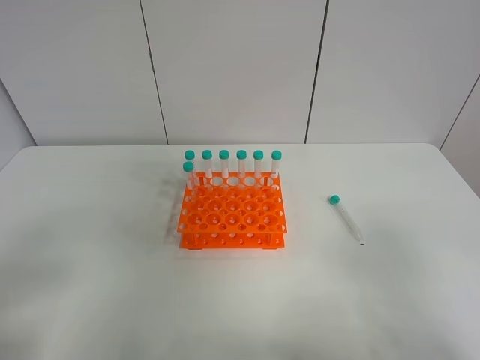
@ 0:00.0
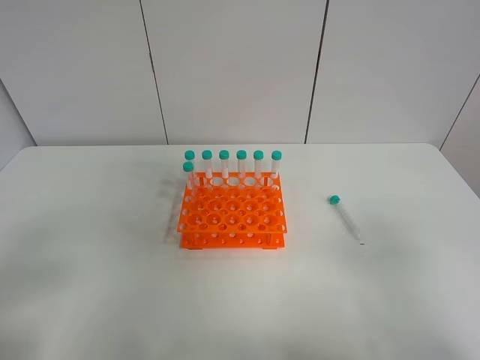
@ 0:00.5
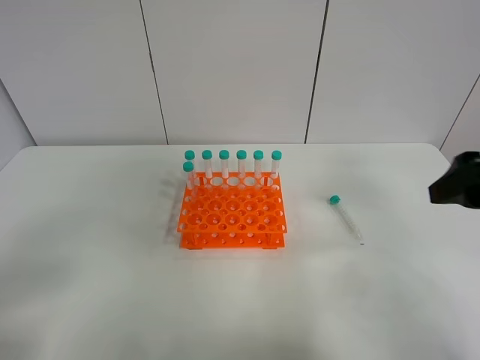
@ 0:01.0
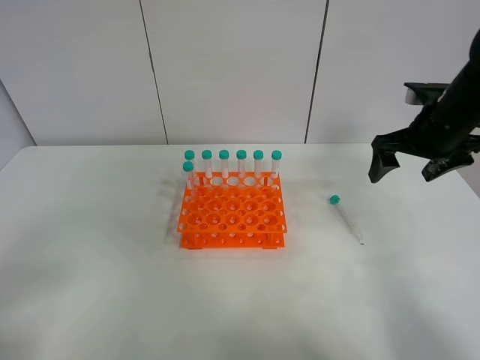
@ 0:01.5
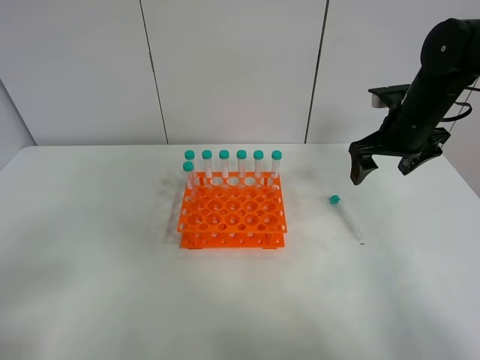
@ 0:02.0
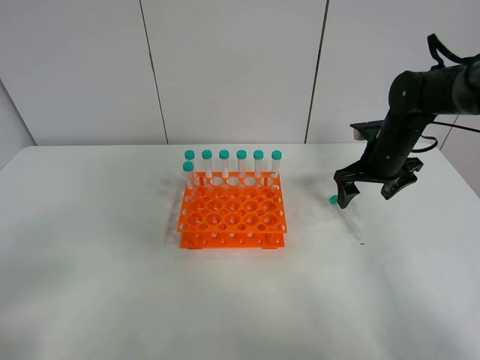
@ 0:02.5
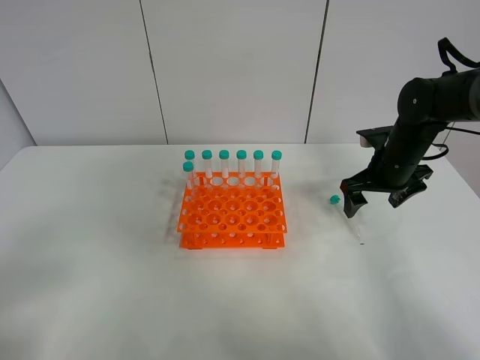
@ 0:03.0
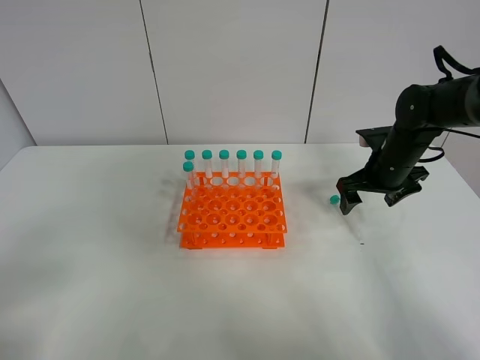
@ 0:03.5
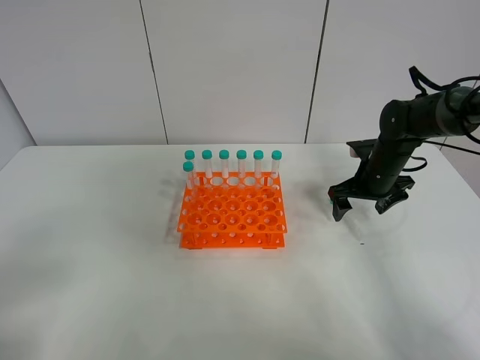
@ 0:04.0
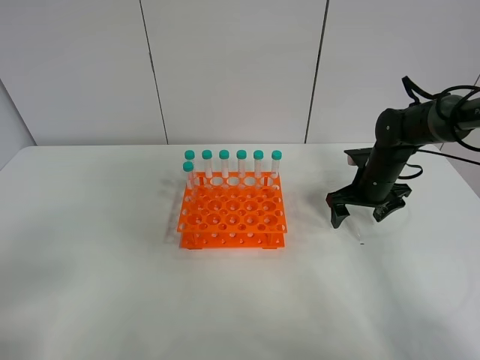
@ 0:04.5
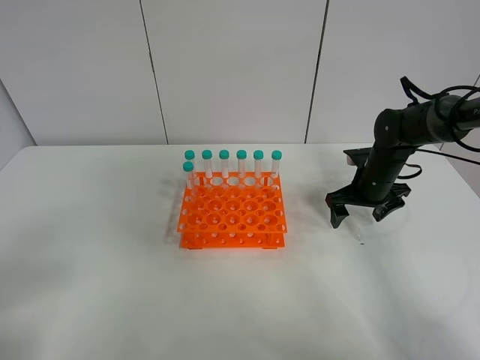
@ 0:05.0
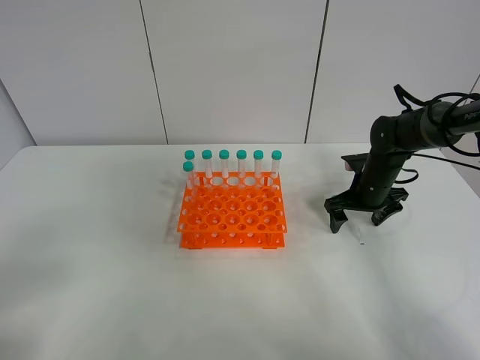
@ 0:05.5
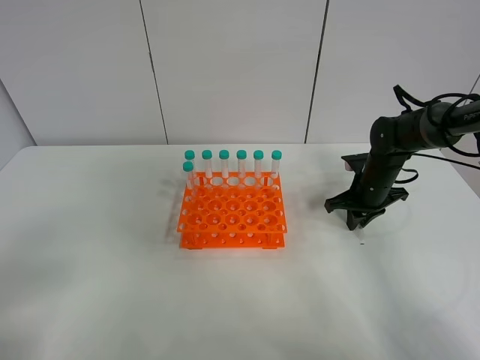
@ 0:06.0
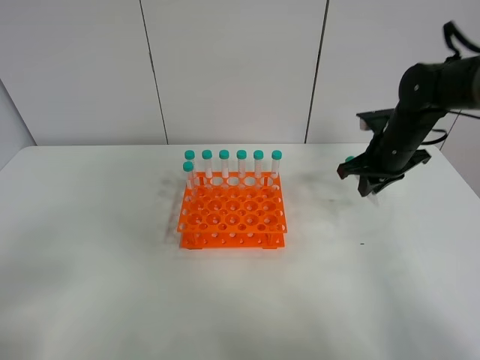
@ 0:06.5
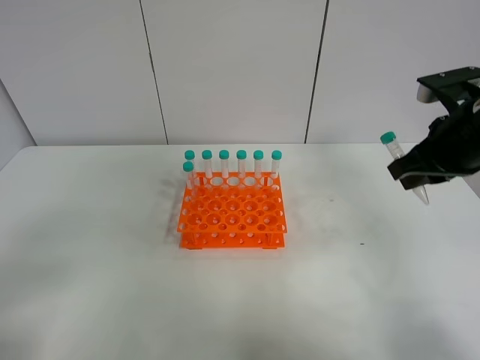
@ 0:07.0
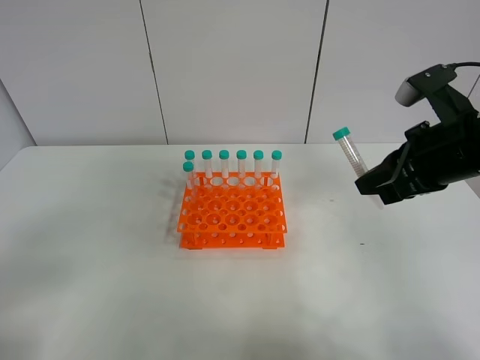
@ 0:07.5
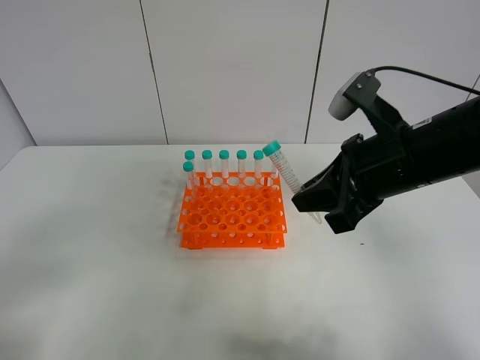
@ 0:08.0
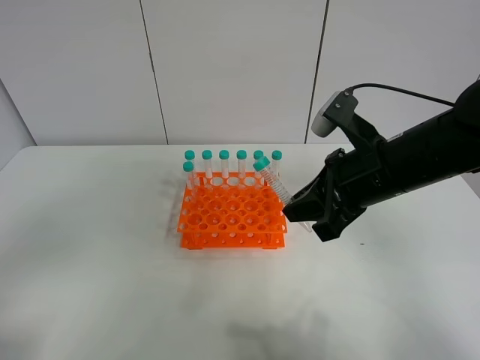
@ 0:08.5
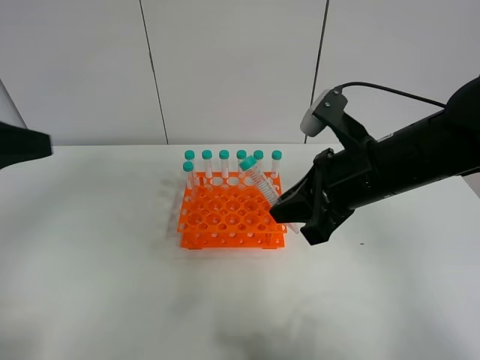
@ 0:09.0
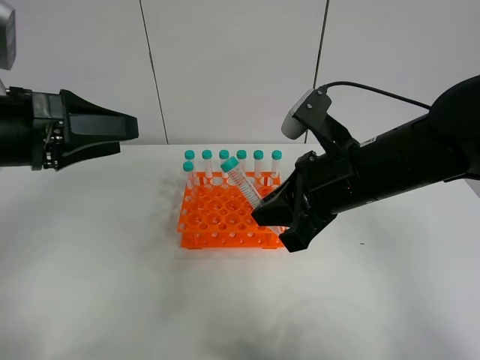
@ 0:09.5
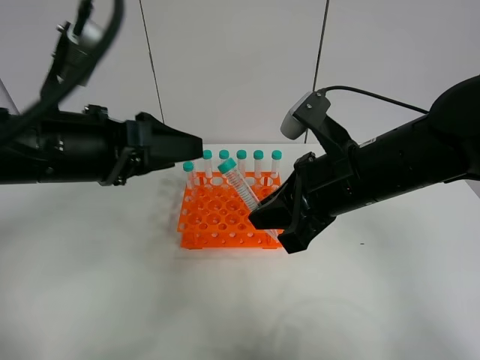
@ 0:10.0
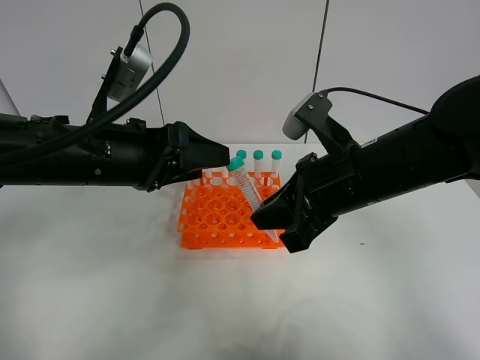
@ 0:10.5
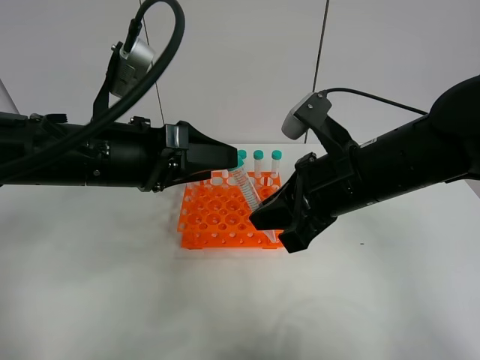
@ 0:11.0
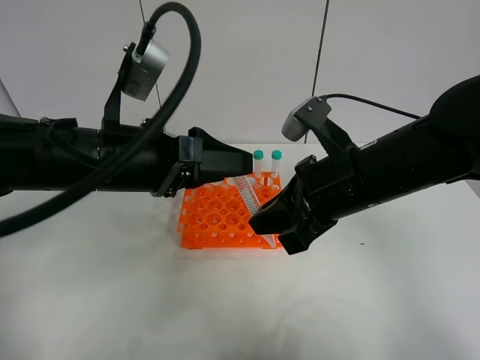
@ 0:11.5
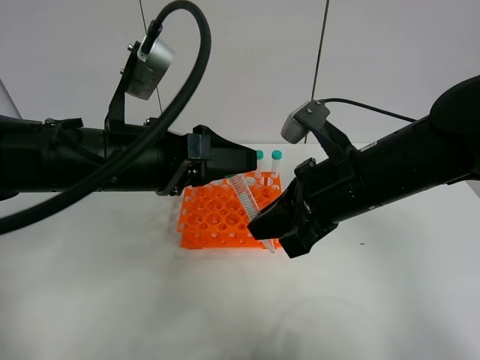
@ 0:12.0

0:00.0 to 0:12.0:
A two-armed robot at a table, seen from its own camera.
Task of the whole recording: Put the test tube on the table back onto the test tube rack.
Step, 0:00.0 to 0:06.0: Pick up the test tube with the right gripper.
0:00.0 to 0:02.0: The right gripper heads forward, covering some 40 cm.
0:02.0 to 0:04.0: The right gripper shifts about 10 cm downward.
0:04.0 to 0:06.0: The right gripper closes up.
0:06.0 to 0:08.0: The right gripper travels upward, backward and to the left by approximately 25 cm.
0:08.0 to 0:10.0: The left gripper goes some 25 cm forward and to the right.
0:10.0 to 0:12.0: The left gripper moves approximately 5 cm.

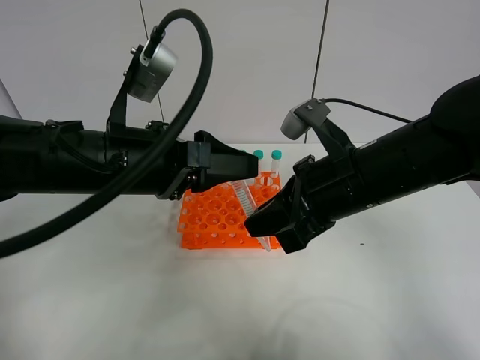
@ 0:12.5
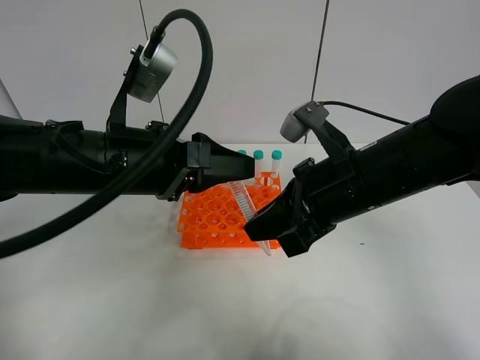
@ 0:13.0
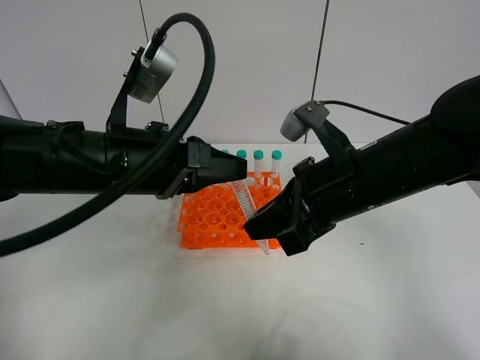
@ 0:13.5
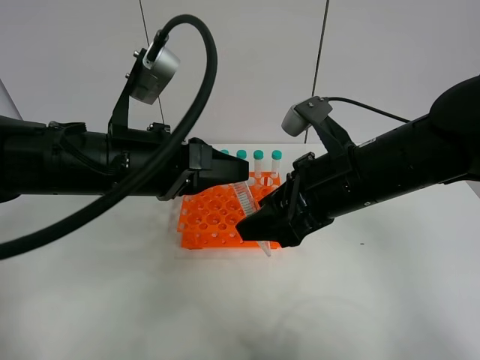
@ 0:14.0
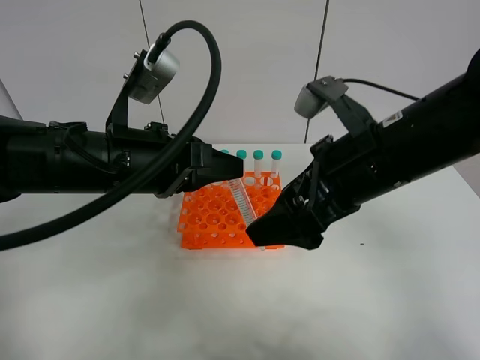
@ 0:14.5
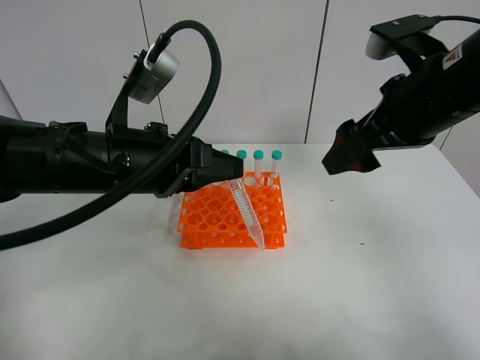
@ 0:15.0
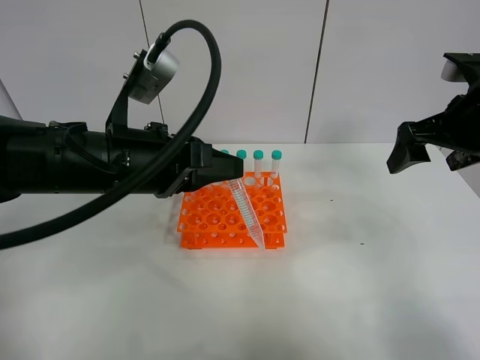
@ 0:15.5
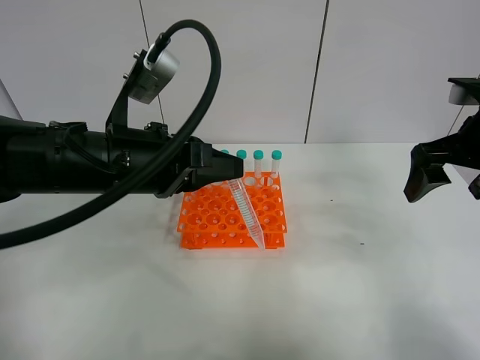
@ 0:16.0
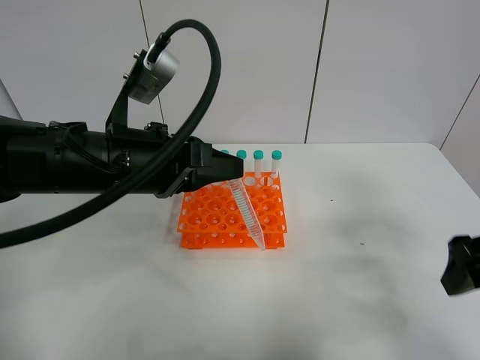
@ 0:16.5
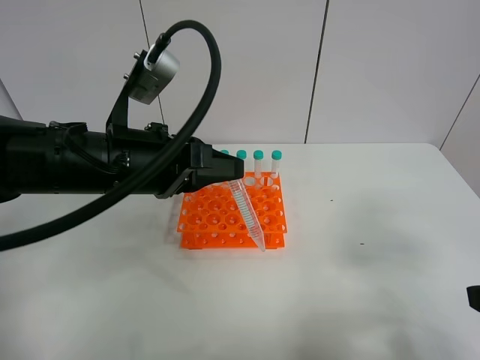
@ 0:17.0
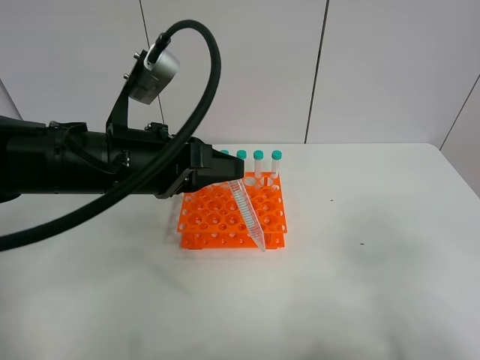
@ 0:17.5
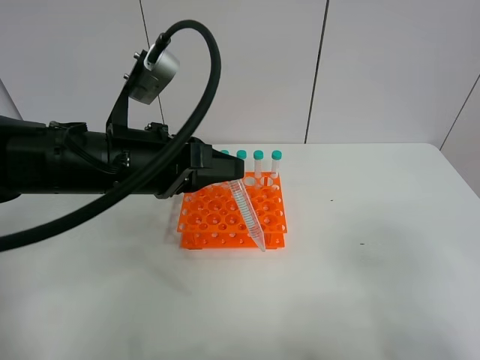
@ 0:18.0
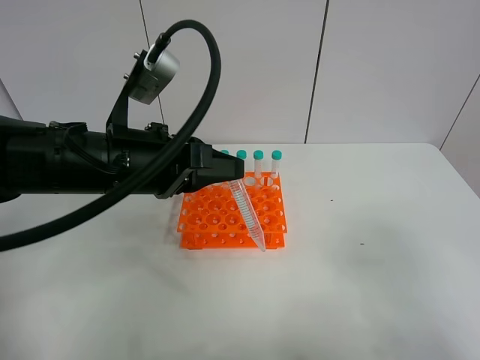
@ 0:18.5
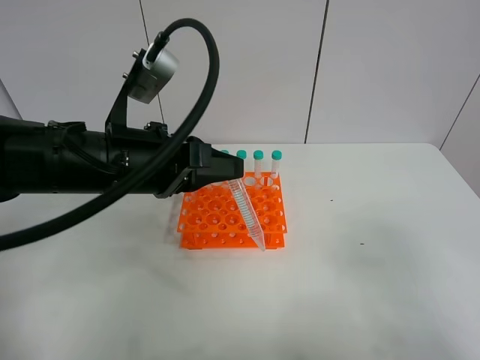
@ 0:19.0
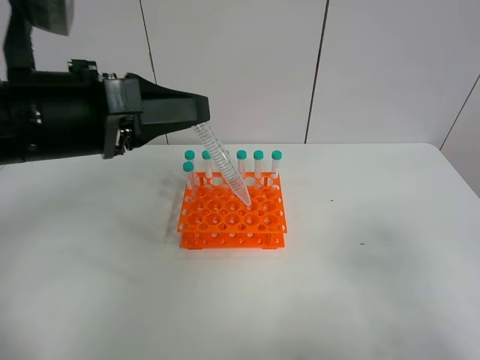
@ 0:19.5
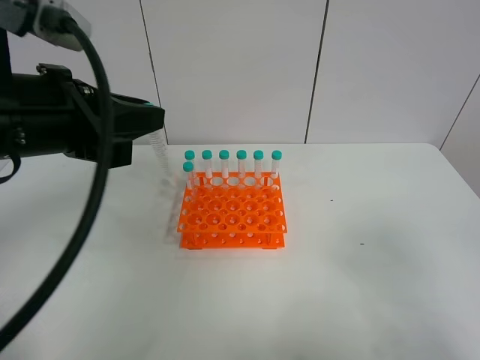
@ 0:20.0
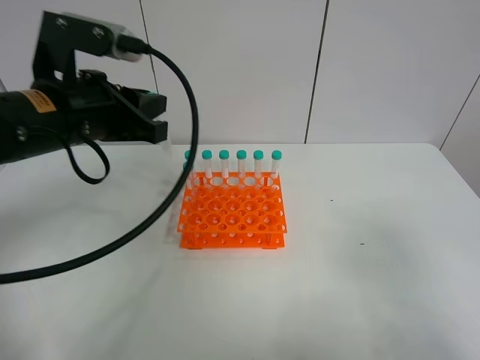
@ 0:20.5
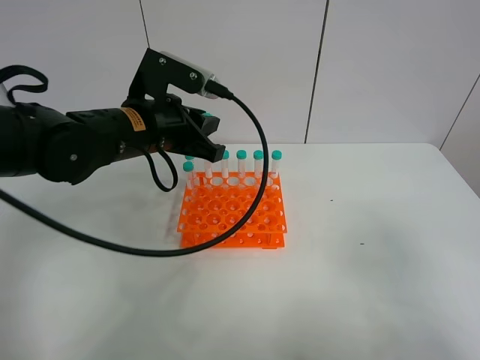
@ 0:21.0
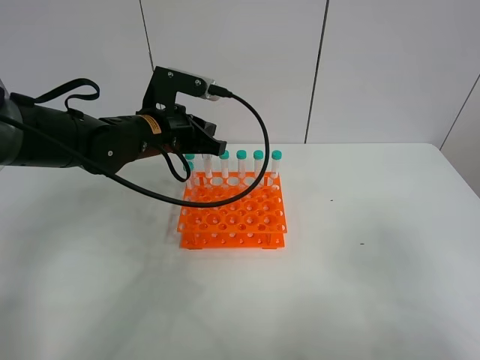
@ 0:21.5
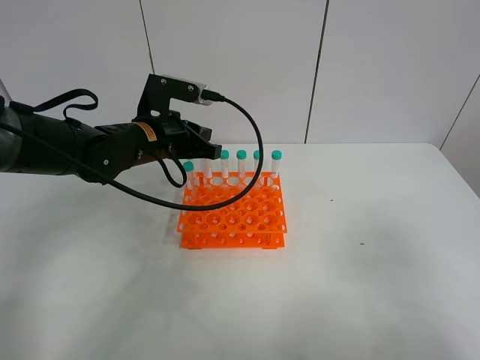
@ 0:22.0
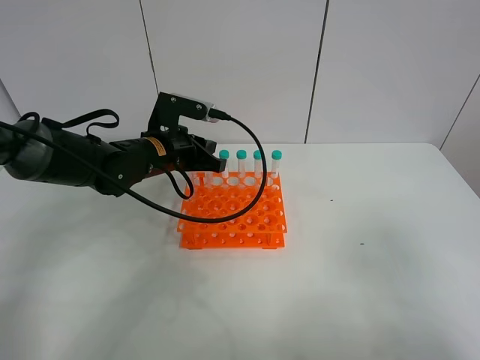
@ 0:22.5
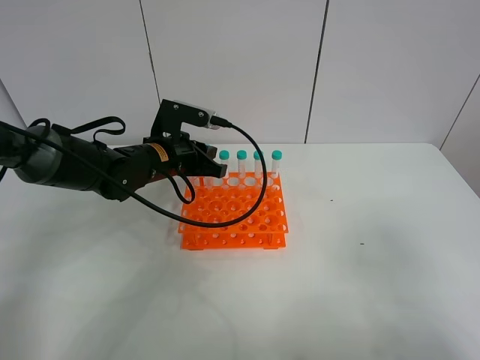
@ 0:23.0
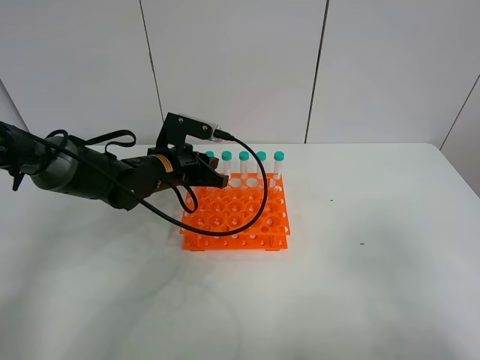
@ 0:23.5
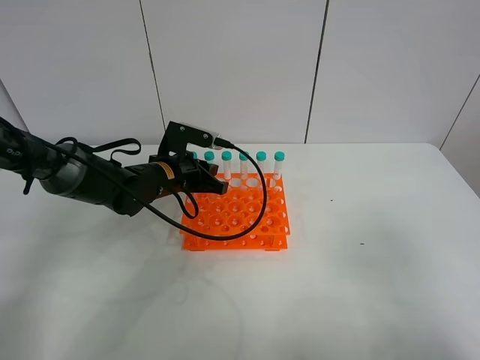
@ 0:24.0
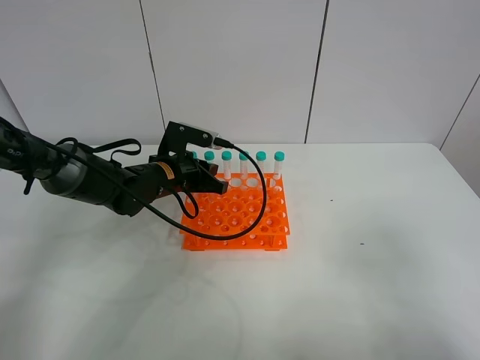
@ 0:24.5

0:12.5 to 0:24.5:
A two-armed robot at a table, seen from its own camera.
Task of the whole recording: Put the test tube on the table back onto the test tube rack.
0:12.5 to 0:14.5: The right gripper opens its fingers, while the left gripper closes its fingers.
0:14.5 to 0:16.5: The right gripper heads to the right, covering some 15 cm.
0:16.5 to 0:18.5: The right gripper moves backward, some 15 cm.
0:20.5 to 0:22.5: The left gripper travels downward, forward and to the right by some 15 cm.
0:22.5 to 0:24.5: The left gripper shifts roughly 5 cm downward.

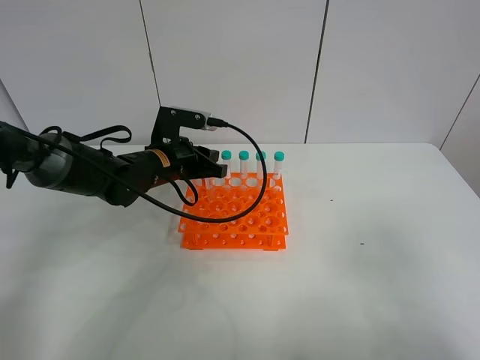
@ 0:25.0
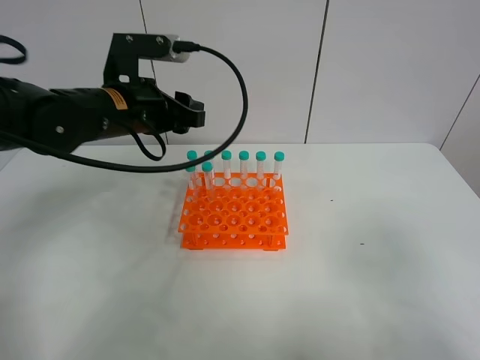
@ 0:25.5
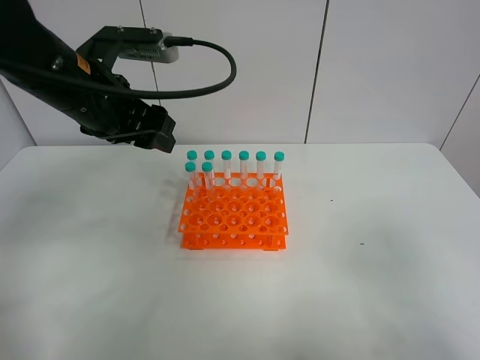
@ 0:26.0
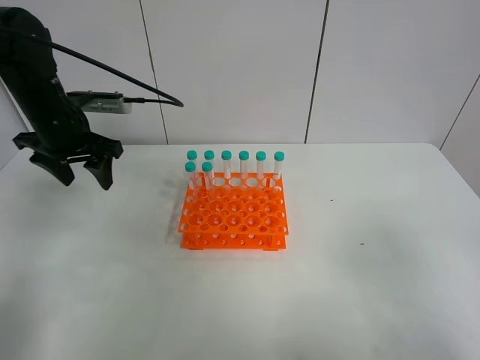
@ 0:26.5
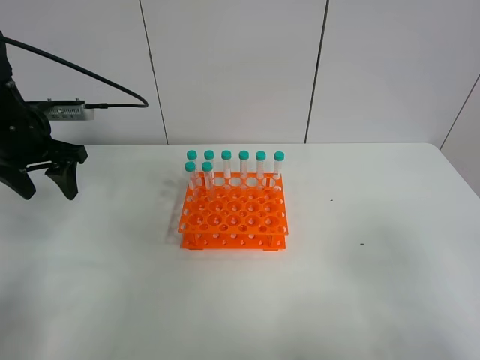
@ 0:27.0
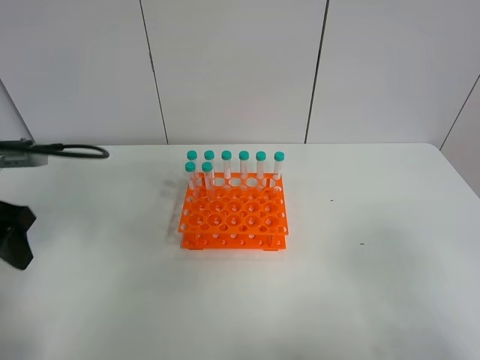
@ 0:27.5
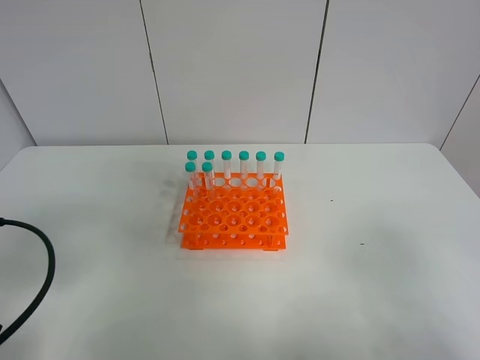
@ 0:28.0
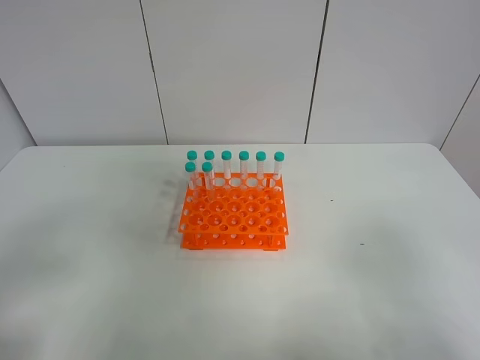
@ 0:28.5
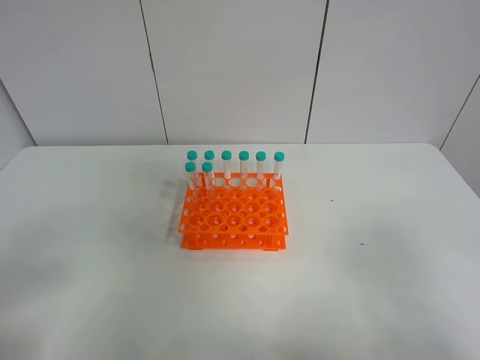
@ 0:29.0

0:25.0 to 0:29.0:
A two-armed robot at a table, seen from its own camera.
Task of the whole recording: Put the test tube on the table back onto the test tube rack.
0:25.0 to 0:27.0: The left gripper shifts about 20 cm to the left and upward, and opens its fingers.
0:27.0 to 0:29.0: The left gripper moves backward, roughly 35 cm.
